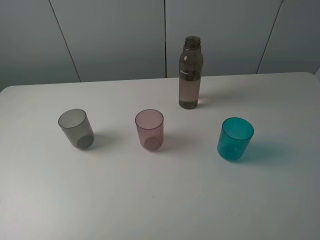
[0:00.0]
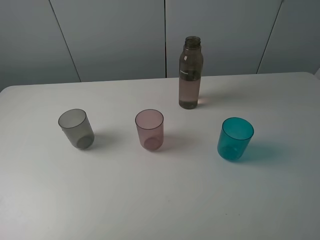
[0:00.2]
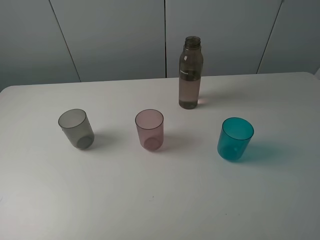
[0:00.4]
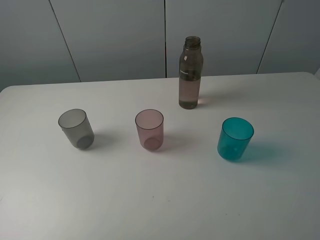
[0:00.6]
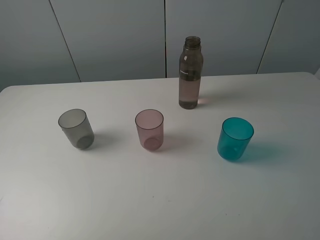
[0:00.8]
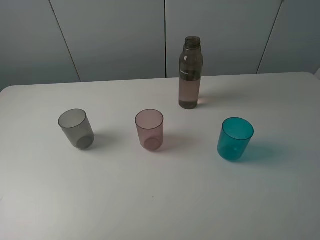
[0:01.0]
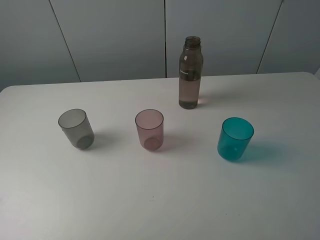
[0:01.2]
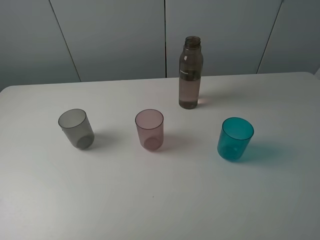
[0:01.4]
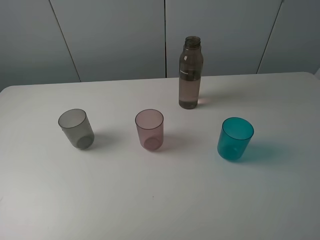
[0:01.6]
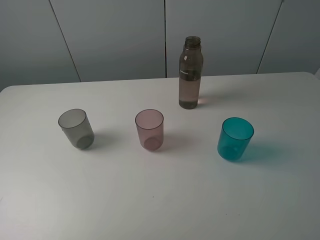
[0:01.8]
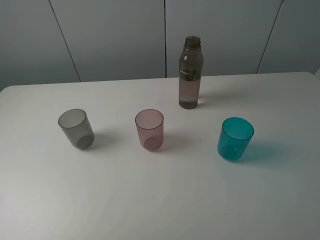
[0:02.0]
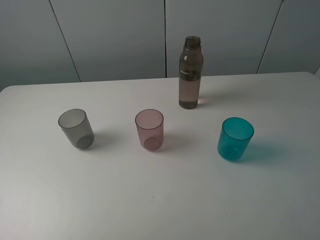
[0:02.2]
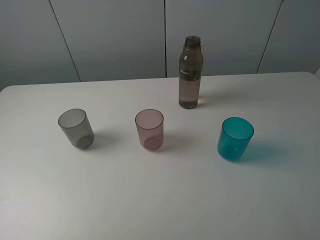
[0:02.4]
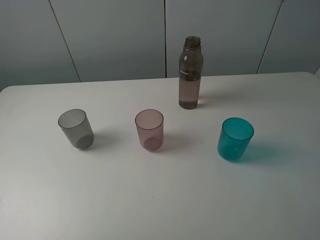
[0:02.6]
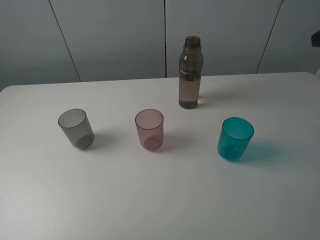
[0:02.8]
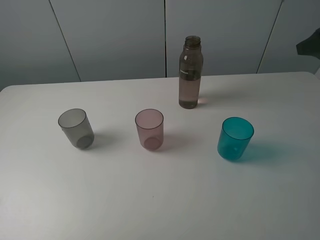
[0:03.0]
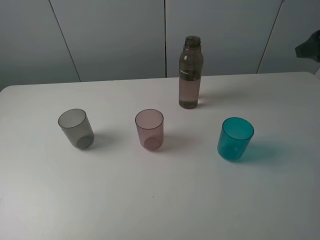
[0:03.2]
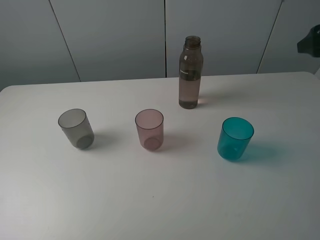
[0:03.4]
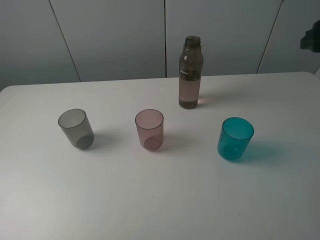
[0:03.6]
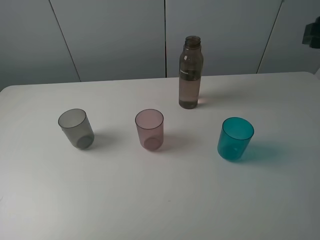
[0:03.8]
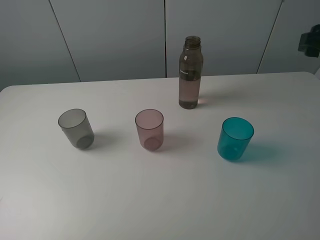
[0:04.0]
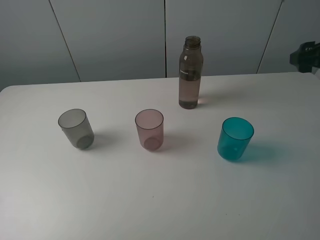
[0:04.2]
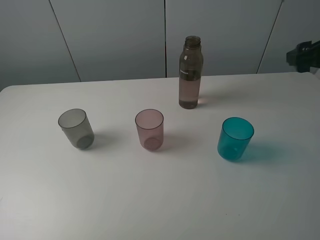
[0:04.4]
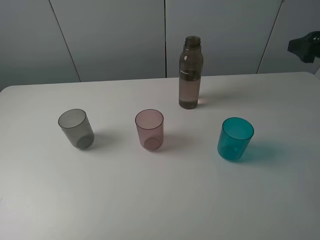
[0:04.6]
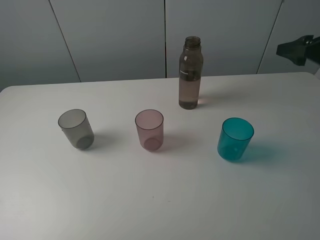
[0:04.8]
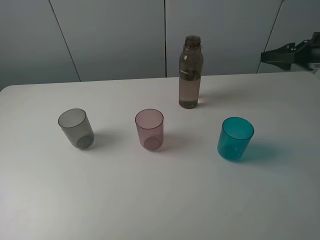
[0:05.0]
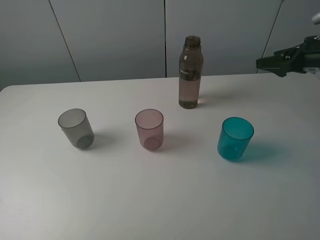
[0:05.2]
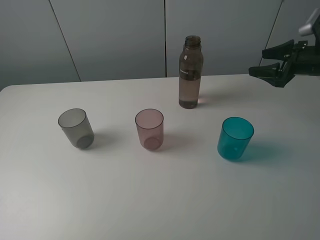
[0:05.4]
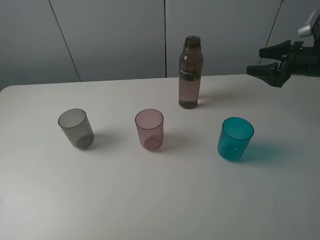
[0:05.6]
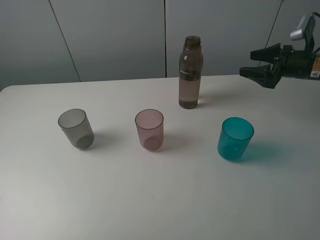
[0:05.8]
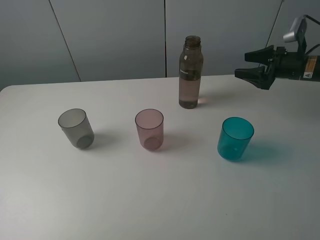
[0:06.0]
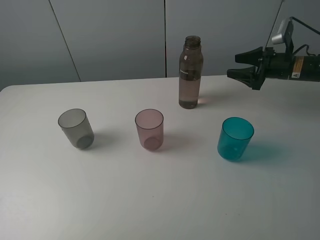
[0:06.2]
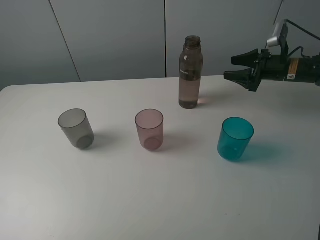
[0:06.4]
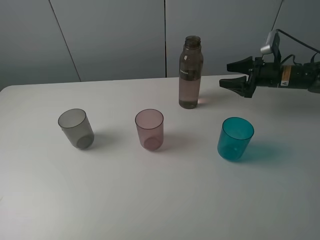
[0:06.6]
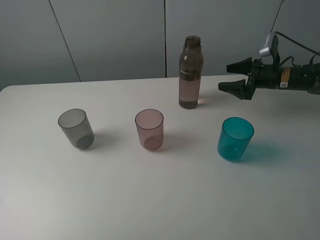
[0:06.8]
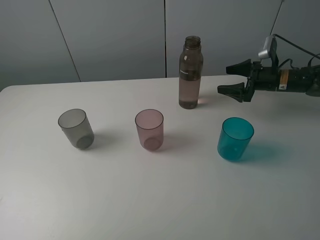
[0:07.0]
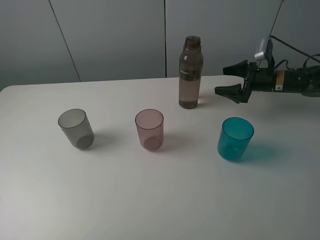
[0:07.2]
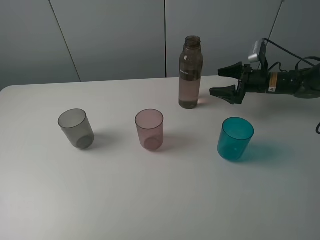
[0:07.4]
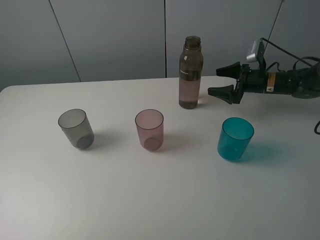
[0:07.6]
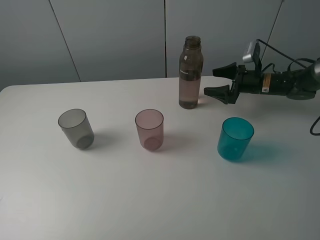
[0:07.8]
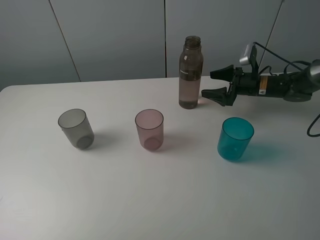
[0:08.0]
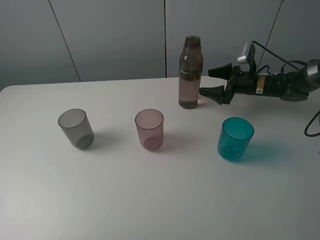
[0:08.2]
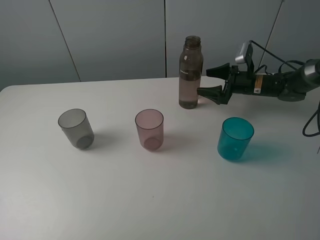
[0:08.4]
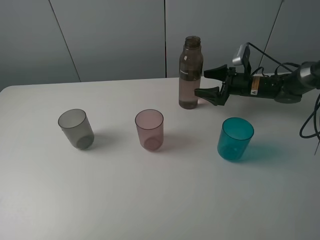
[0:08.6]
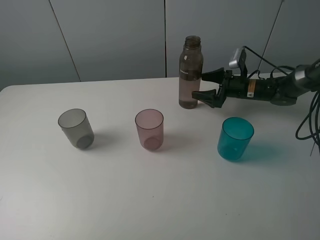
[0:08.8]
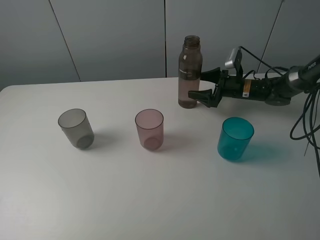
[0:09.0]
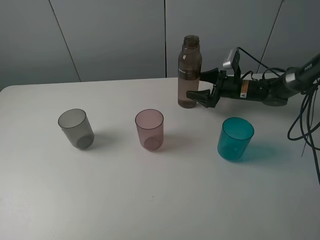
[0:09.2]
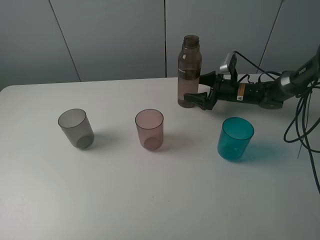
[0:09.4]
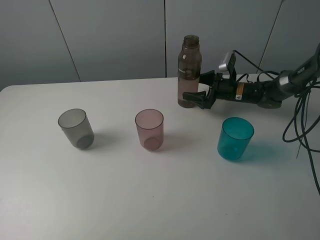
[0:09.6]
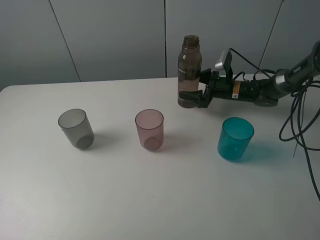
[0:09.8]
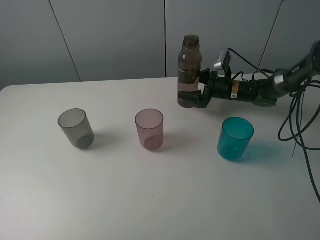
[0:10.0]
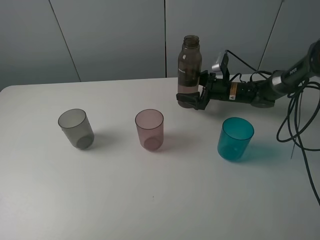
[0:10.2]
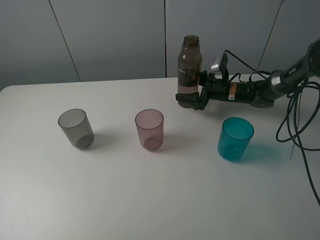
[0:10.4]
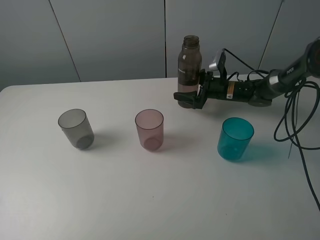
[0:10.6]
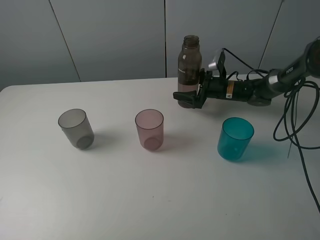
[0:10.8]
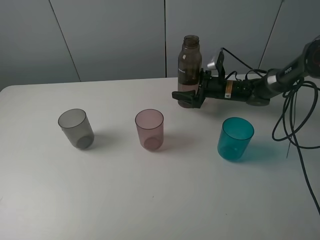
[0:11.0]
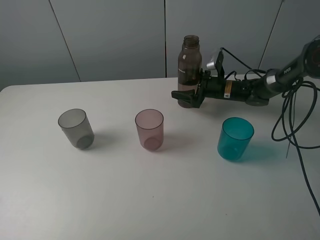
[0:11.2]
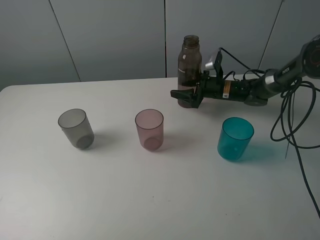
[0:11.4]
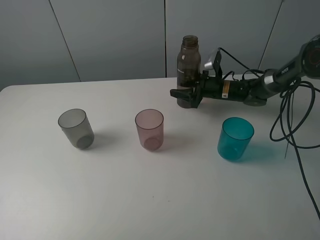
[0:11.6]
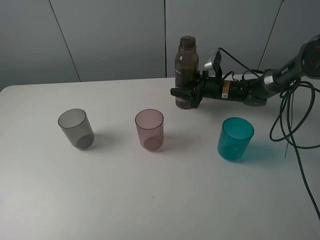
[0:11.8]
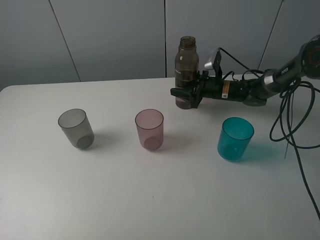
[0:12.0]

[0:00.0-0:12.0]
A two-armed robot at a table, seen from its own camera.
Task of the whole recording: pick up the bottle filled with water and pour water into the middle cup of the three cups.
Step, 0:00.0 to 0:11.0: Grasp the transparent bottle with the right gripper.
0:04.4 to 0:06.0: The right gripper heads forward and downward, covering about 20 cm.
0:06.0 to 0:07.6: The right gripper shifts approximately 10 cm downward and to the left, and opens up.
0:07.6 to 0:09.0: The right gripper travels to the left by about 5 cm.
0:09.0 to 0:10.4: The grippers move only a little.
0:10.4 to 0:12.0: The right gripper closes up.

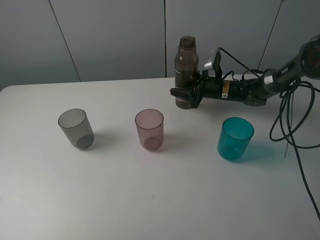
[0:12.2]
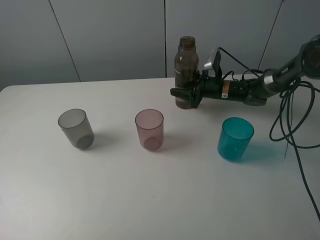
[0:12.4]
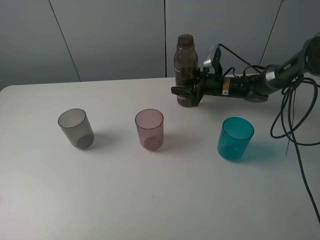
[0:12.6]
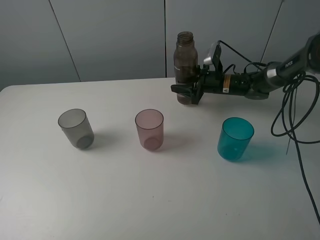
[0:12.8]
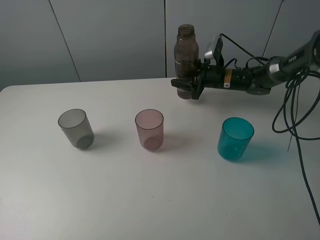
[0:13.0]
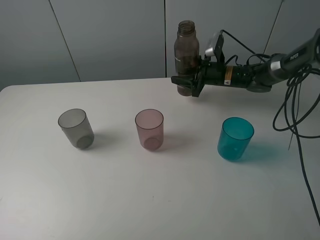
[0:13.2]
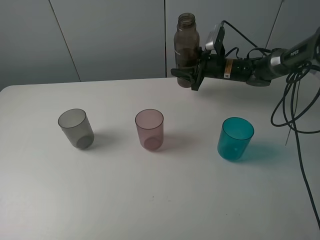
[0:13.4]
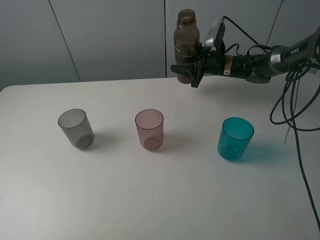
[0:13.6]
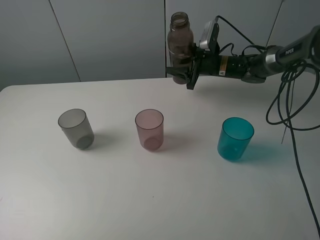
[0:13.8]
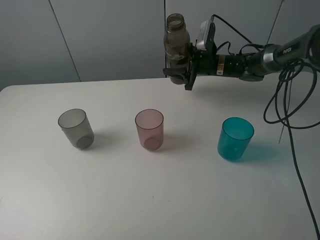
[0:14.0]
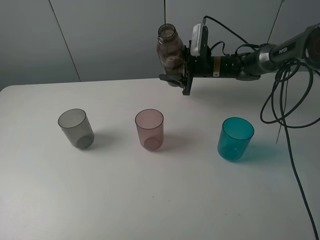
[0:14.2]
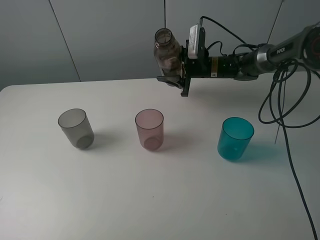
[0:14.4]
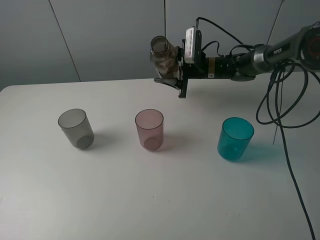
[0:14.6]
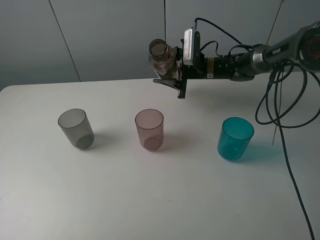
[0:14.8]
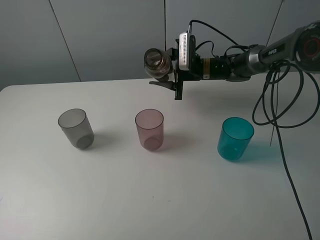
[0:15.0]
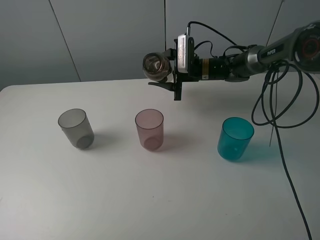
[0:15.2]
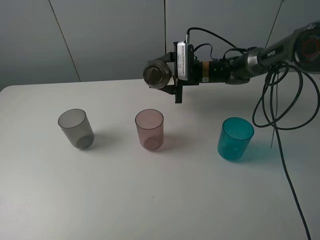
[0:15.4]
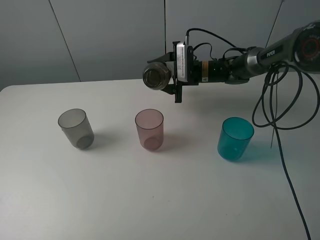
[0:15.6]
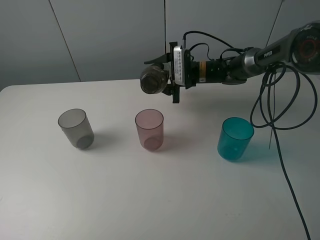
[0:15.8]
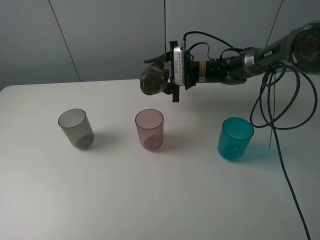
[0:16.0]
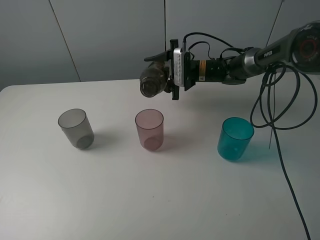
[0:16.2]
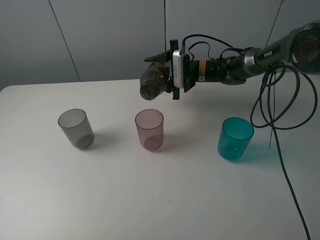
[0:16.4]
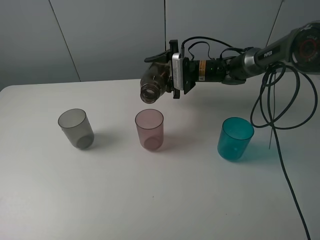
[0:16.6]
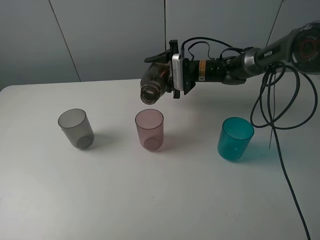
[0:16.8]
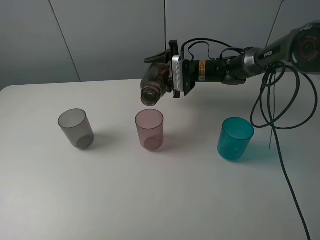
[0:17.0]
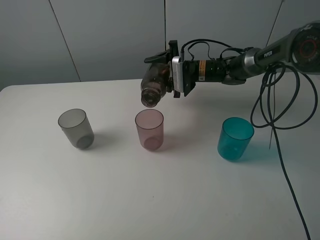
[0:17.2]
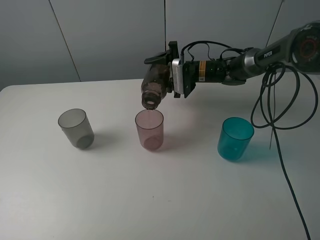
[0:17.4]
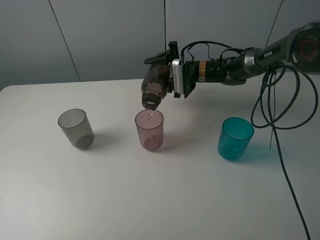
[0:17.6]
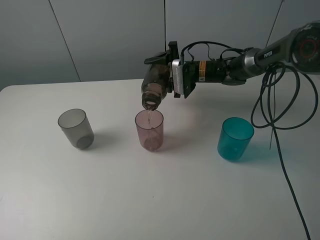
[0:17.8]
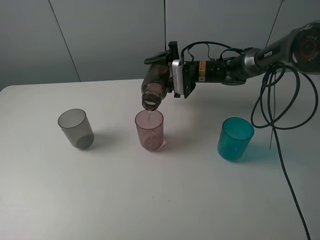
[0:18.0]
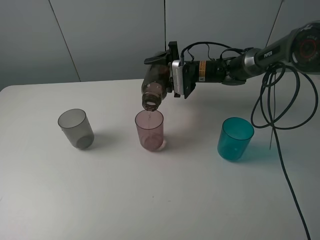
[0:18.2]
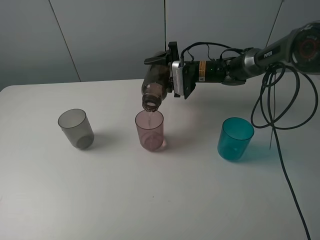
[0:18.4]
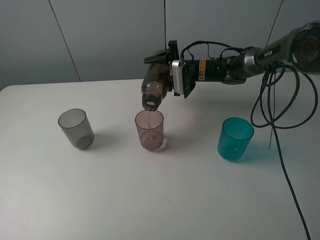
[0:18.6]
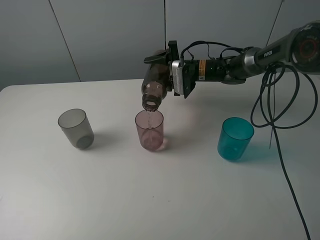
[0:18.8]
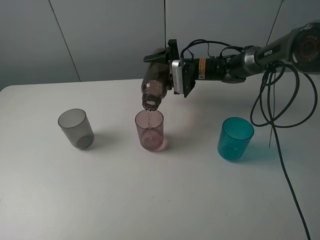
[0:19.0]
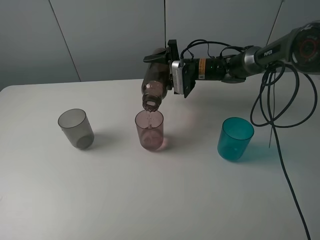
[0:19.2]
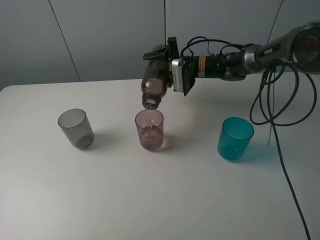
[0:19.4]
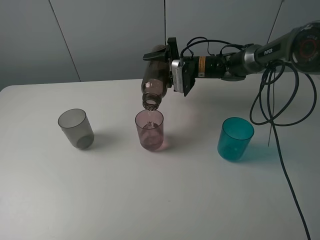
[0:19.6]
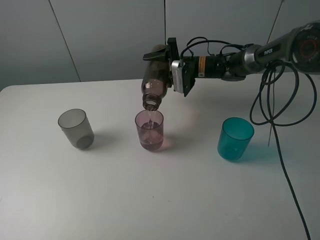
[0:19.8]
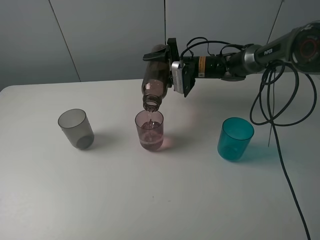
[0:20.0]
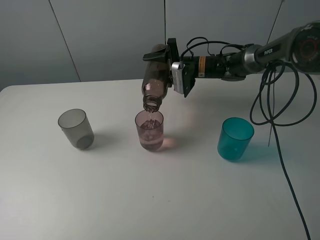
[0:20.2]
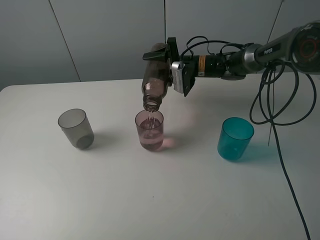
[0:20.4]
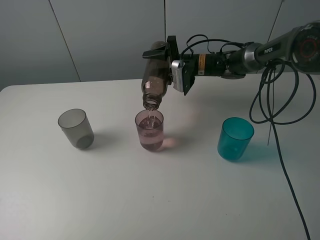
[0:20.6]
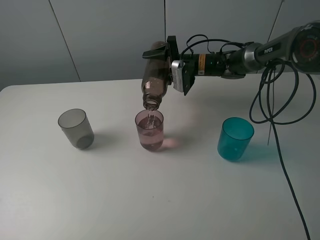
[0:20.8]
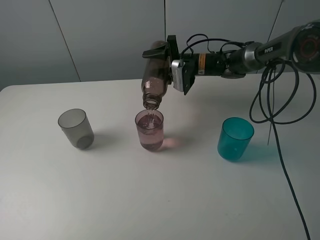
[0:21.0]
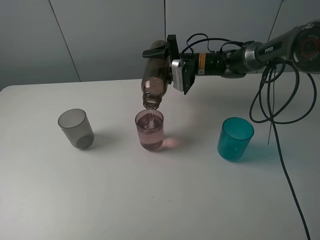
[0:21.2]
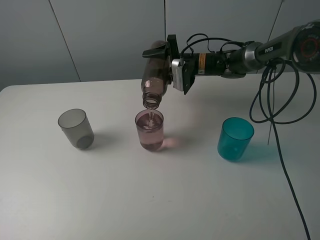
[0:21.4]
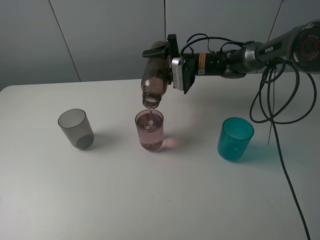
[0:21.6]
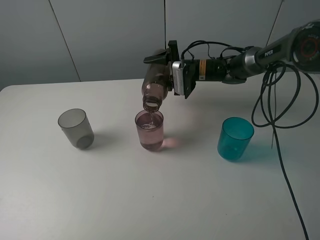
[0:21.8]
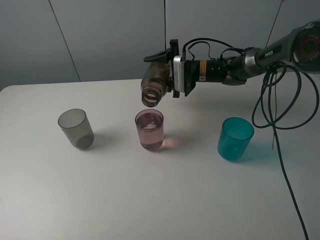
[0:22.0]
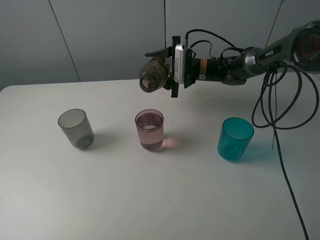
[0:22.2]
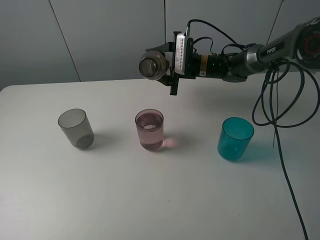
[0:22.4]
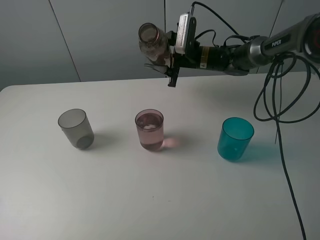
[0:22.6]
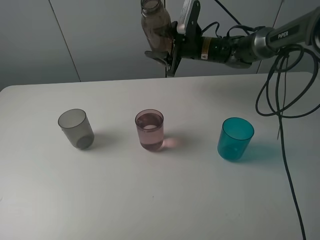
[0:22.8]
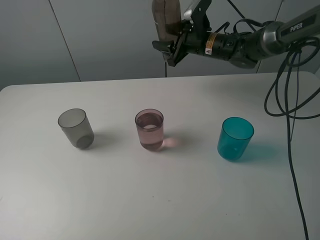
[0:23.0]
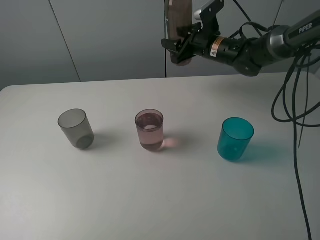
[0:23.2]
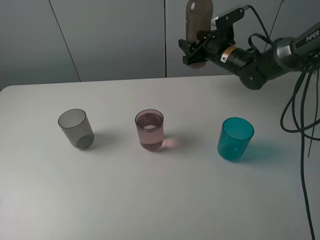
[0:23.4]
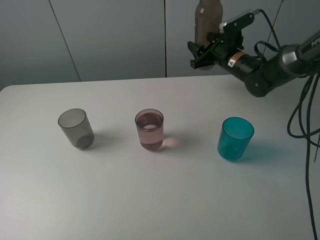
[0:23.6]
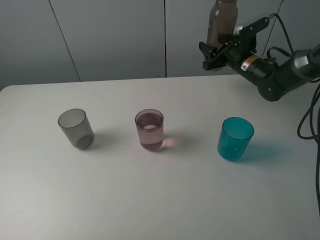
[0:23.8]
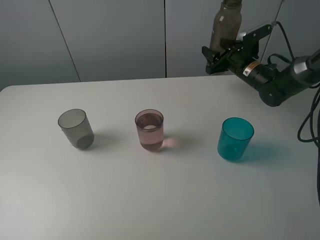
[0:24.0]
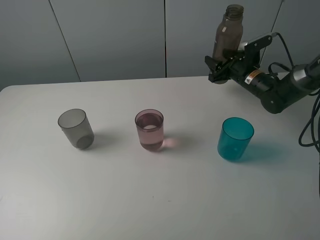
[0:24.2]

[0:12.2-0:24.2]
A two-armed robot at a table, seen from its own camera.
Task of the whole recording: pick up the bottle filled with water and pour water into the middle cup of the three cups.
0:12.2 to 0:13.8: The right gripper goes some 5 cm upward.
0:13.8 to 0:15.2: The right gripper moves to the left, roughly 5 cm.
0:16.6 to 0:19.8: The grippers make only small movements.
0:19.8 to 0:21.2: Both grippers stay about where they are.
0:22.6 to 0:24.2: The right gripper moves to the right and downward, roughly 15 cm.
